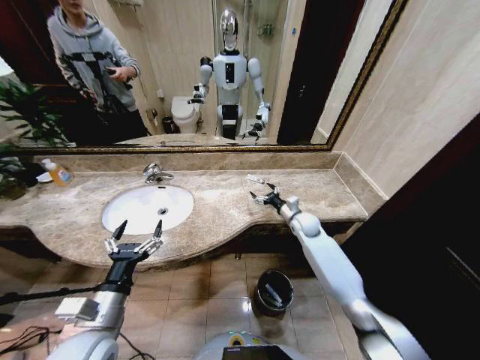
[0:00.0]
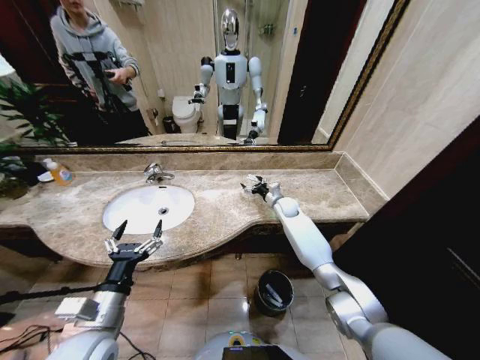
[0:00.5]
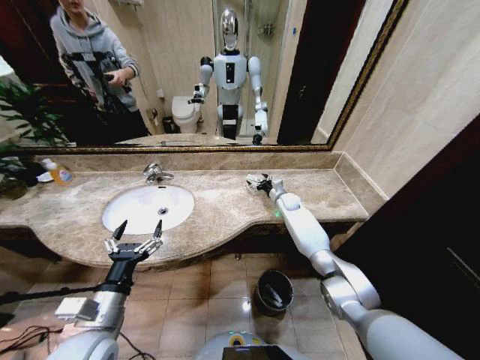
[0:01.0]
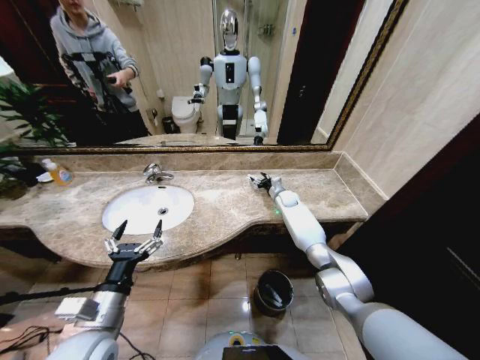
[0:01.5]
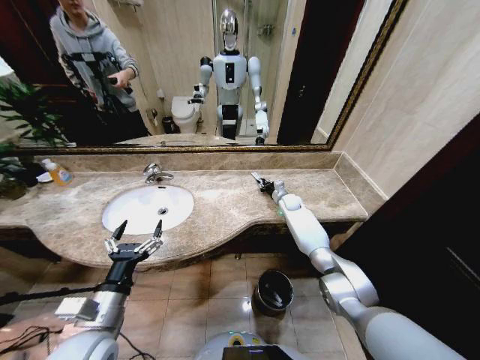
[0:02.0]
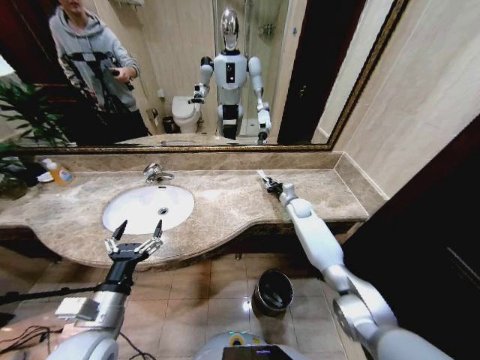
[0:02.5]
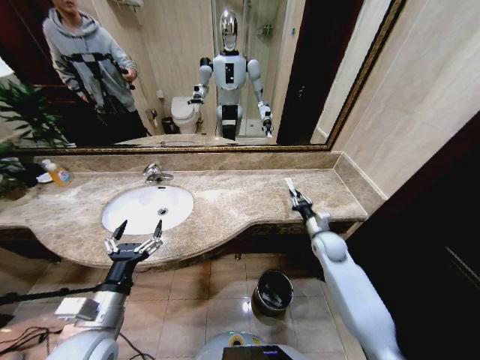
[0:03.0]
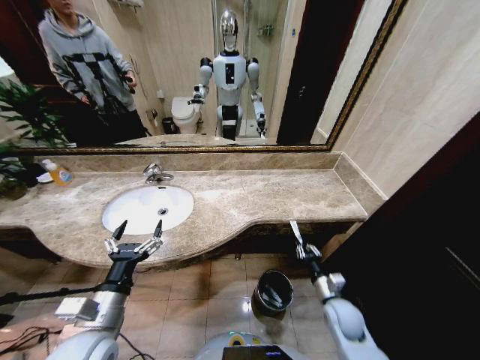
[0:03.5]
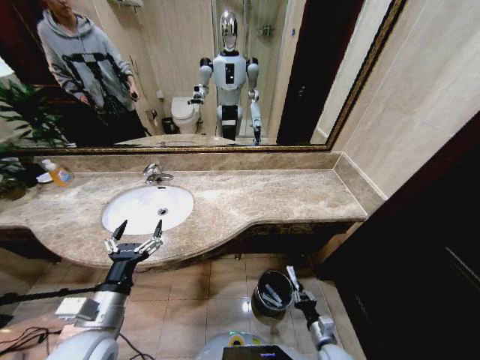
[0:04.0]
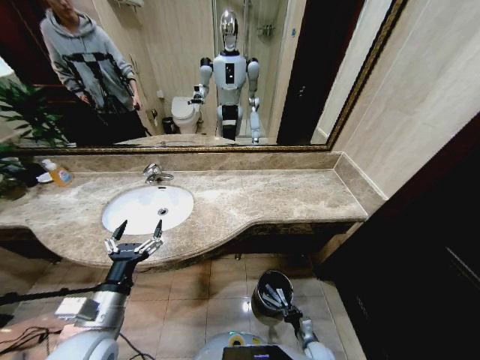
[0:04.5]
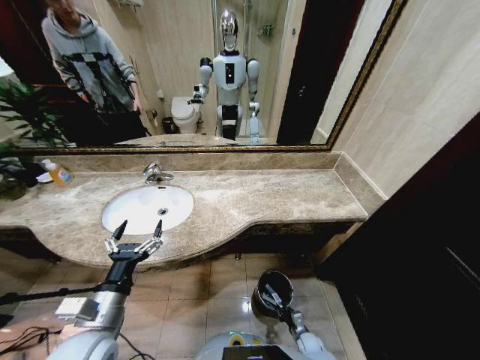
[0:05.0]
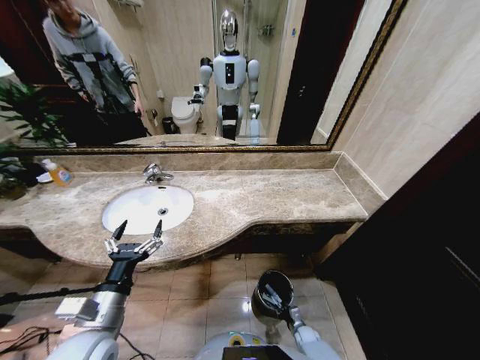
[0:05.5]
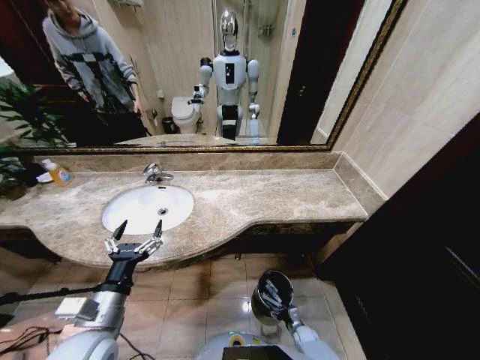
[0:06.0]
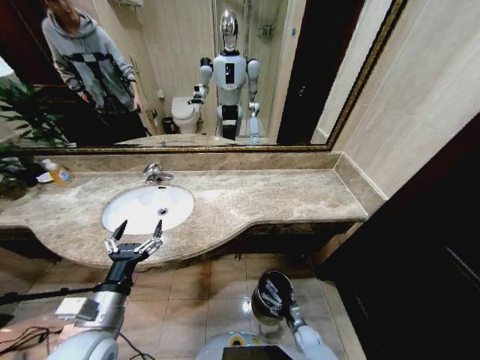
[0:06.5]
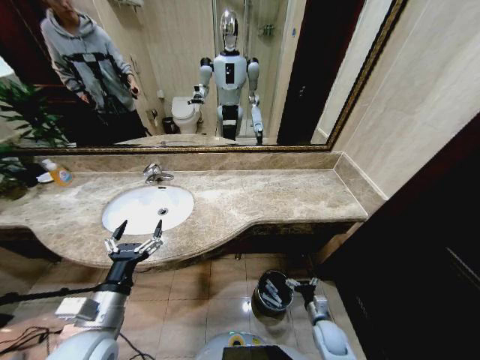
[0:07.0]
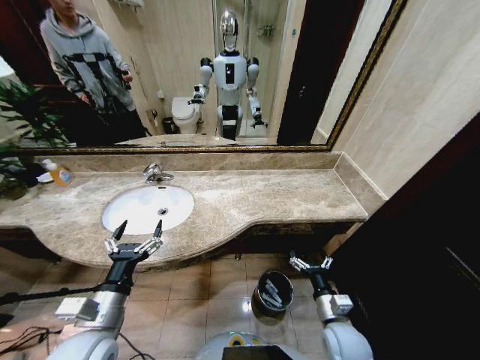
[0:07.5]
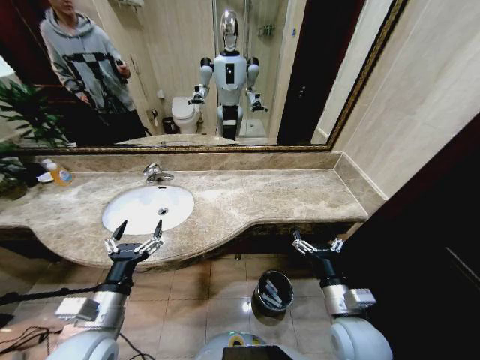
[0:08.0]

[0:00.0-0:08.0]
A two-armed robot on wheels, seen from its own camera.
Task of the whole recording: Pick up the trash from the sink and place it in the trash bin.
0:00.0 to 0:02.0: The right gripper goes roughly 10 cm forward, and closes its fingers.
0:02.0 to 0:04.0: The right gripper moves backward and downward, roughly 50 cm.
0:04.0 to 0:06.0: The right gripper is displaced downward and forward by some 20 cm, and opens up.
0:06.0 to 0:08.0: The right gripper travels upward by roughly 40 cm.
